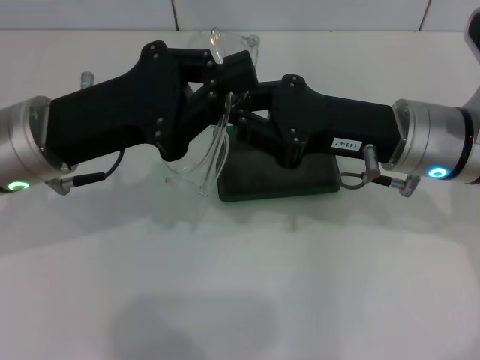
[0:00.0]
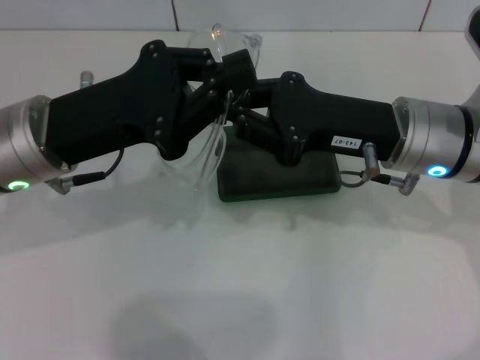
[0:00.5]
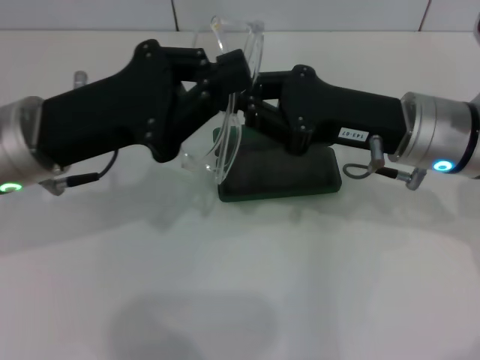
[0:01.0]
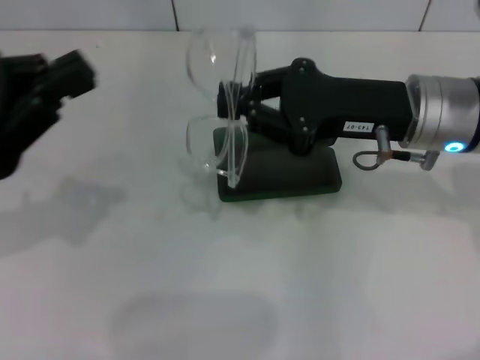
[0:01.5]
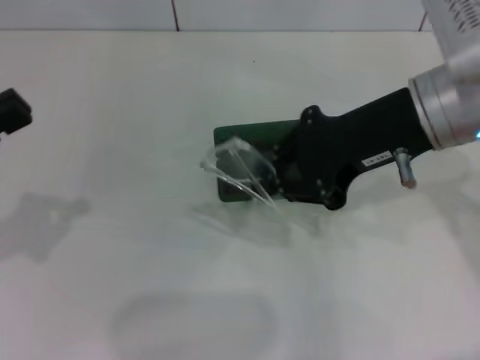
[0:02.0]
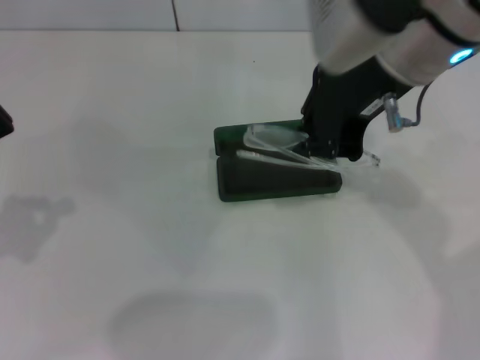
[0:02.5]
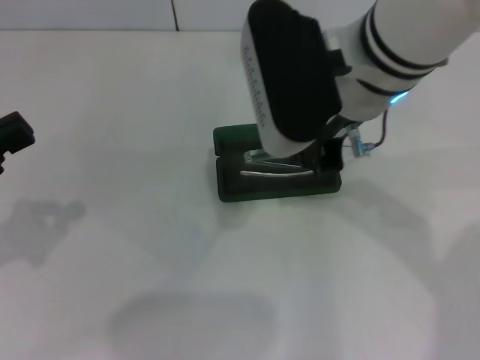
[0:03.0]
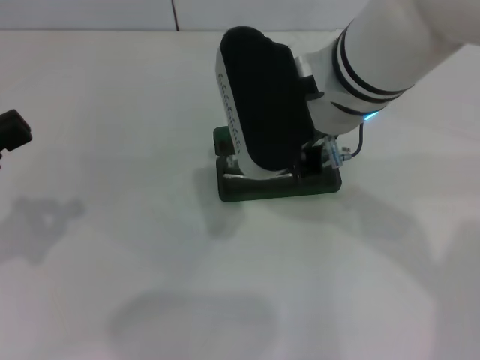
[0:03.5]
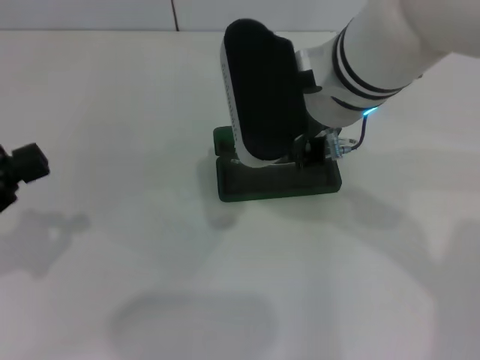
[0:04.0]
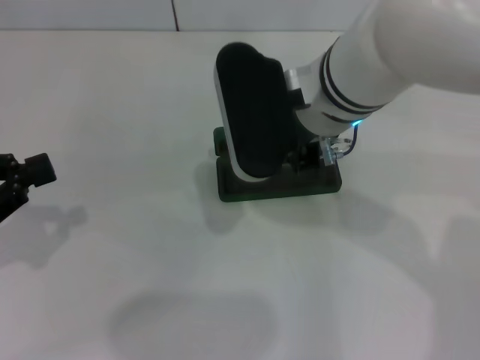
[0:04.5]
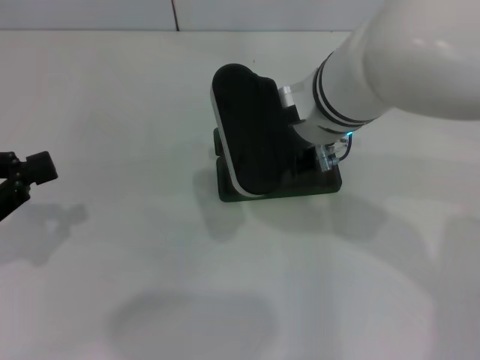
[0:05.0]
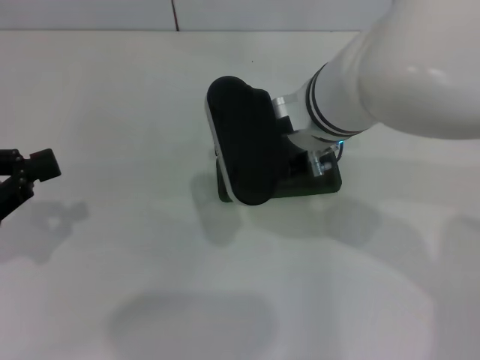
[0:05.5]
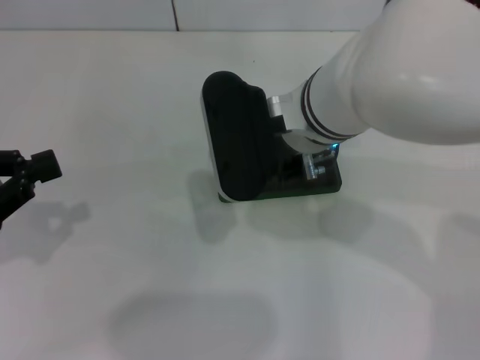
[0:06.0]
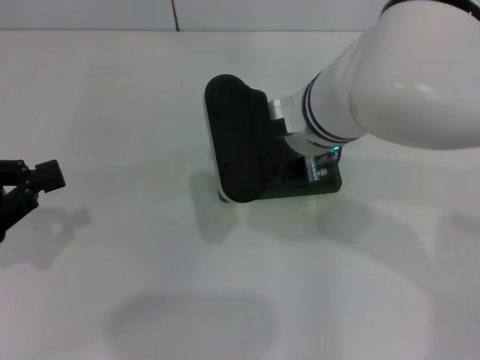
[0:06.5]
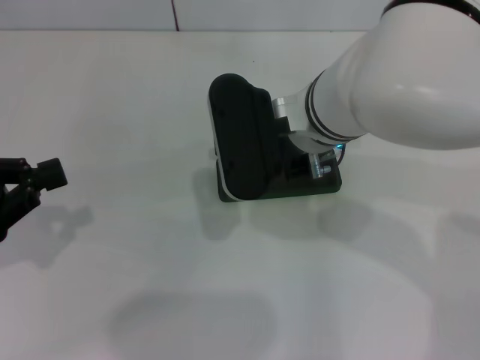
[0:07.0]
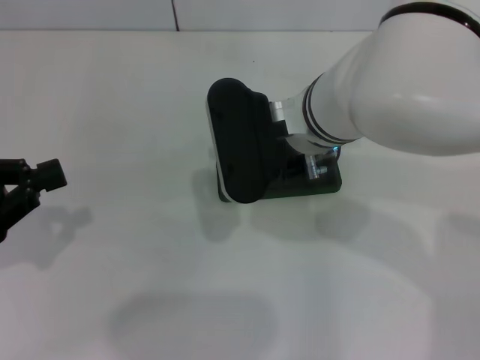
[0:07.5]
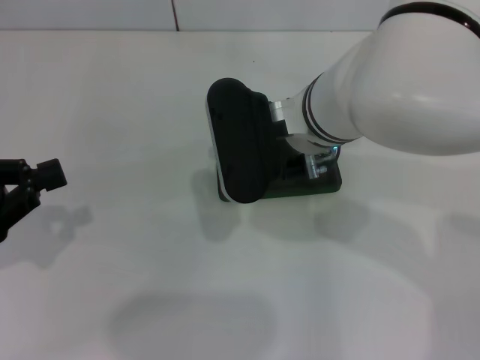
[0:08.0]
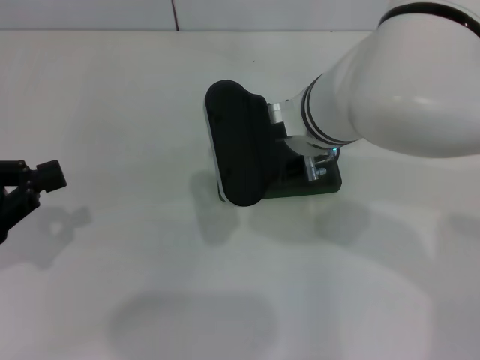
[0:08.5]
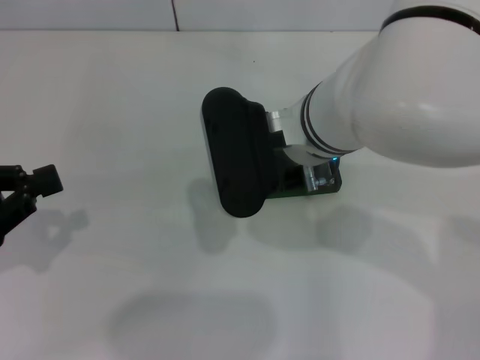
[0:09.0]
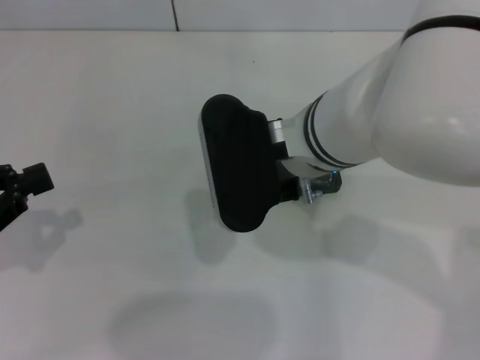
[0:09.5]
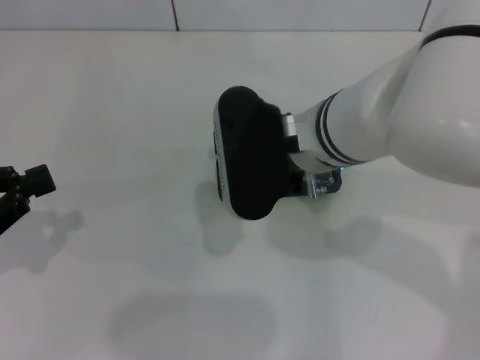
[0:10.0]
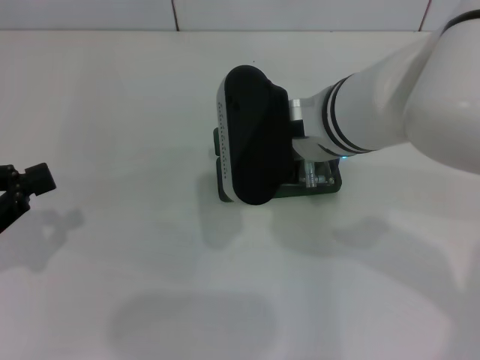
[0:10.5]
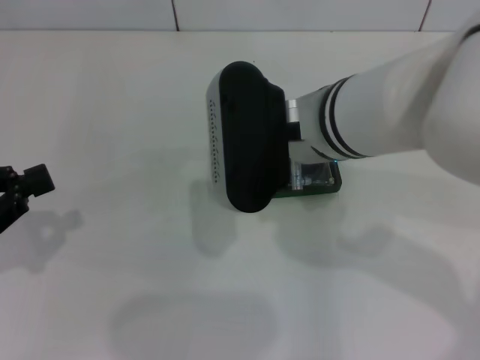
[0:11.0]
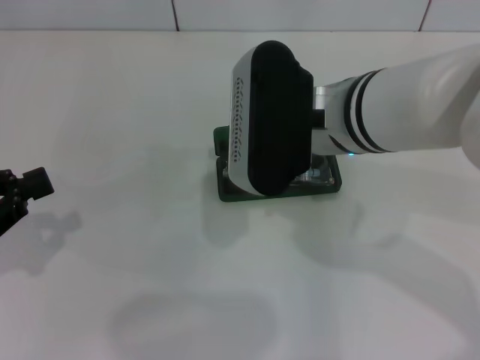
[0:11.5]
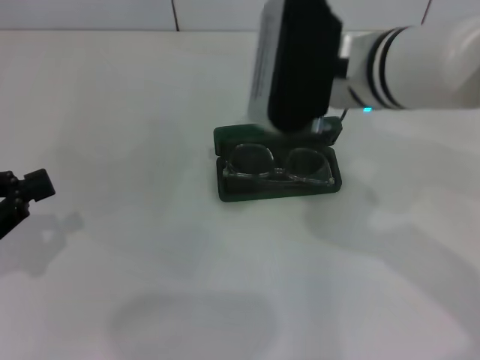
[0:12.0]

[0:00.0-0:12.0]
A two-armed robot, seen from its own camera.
Step, 0:00.0 to 0:09.0: Put the glasses into the case with your right hand.
0:00.0 to 0:02.0: The right gripper goes approximately 10 cm upward; the left gripper moves to the left and backward, roughly 15 cm.
0:02.0 to 0:04.0: The right gripper shifts about 10 cm to the left.
0:04.0 to 0:06.0: The grippers move only a little.
0:06.0 to 0:08.0: Both grippers stay put.
0:08.0 to 0:10.0: The grippers make only small movements.
0:10.0 to 0:12.0: The right gripper shifts by about 5 cm.

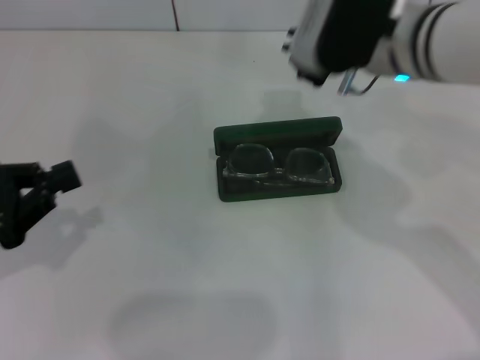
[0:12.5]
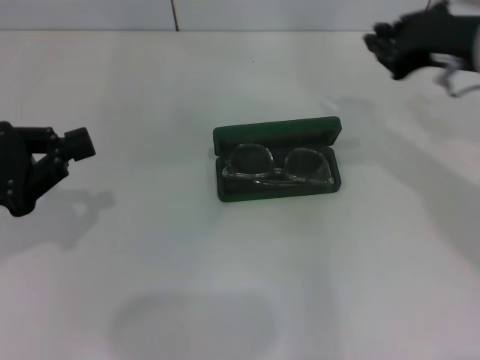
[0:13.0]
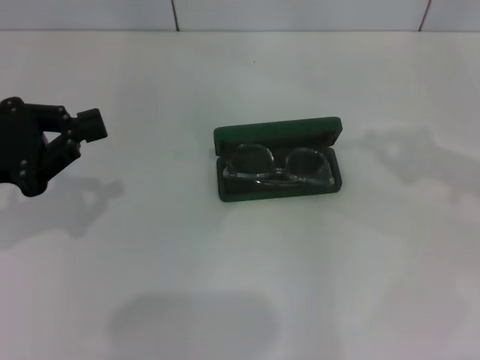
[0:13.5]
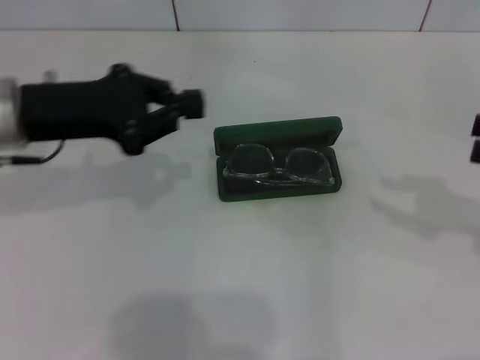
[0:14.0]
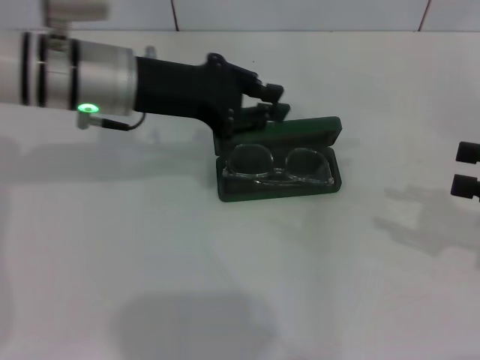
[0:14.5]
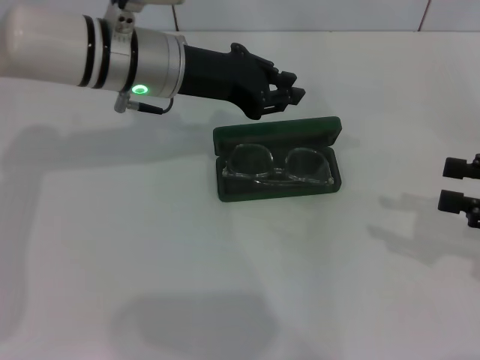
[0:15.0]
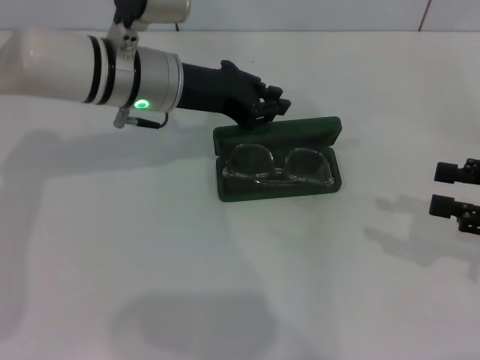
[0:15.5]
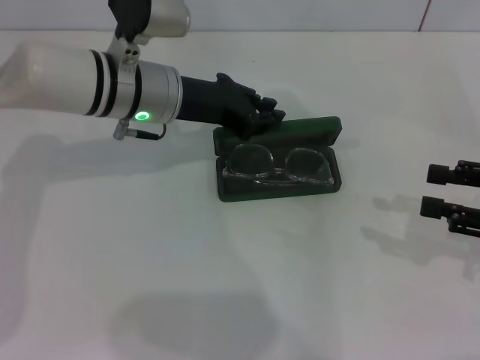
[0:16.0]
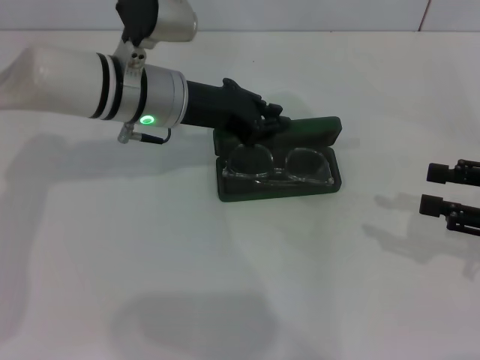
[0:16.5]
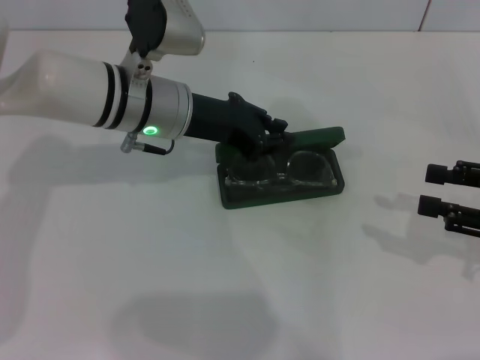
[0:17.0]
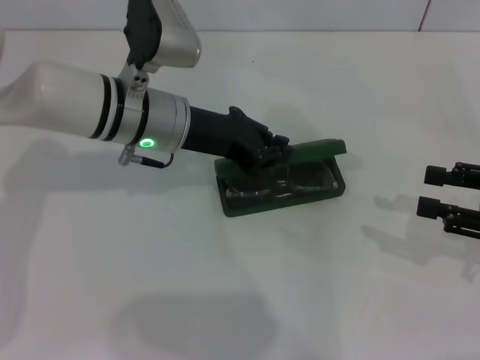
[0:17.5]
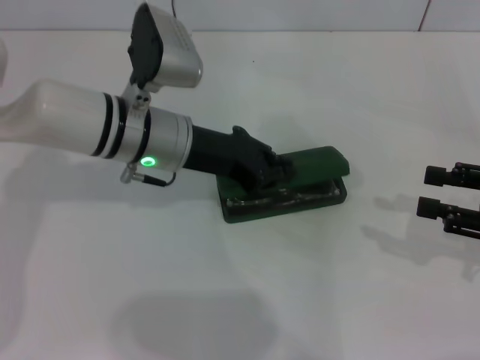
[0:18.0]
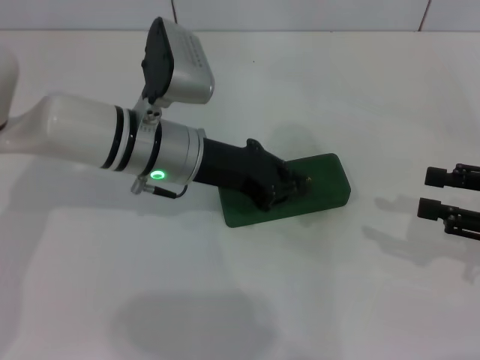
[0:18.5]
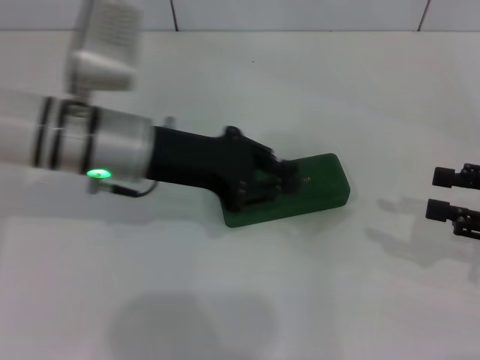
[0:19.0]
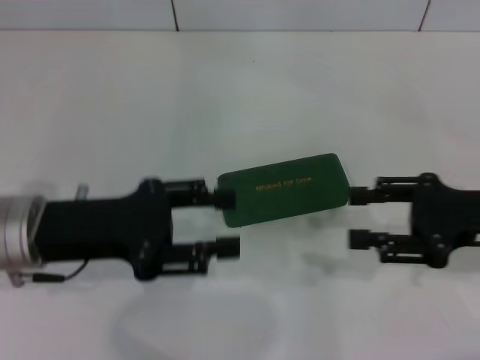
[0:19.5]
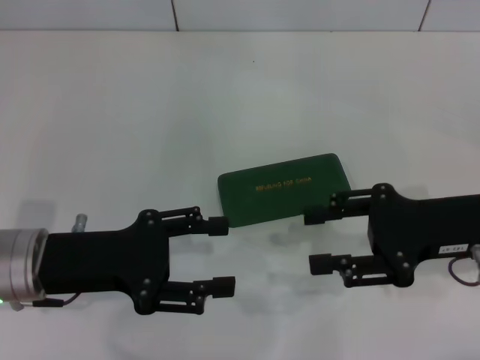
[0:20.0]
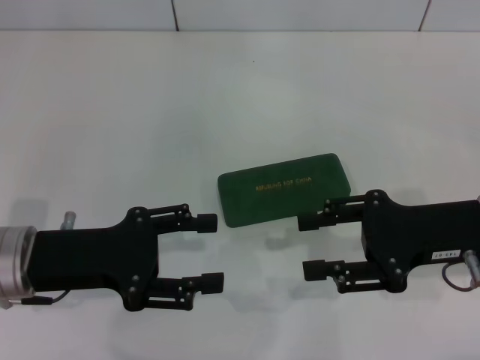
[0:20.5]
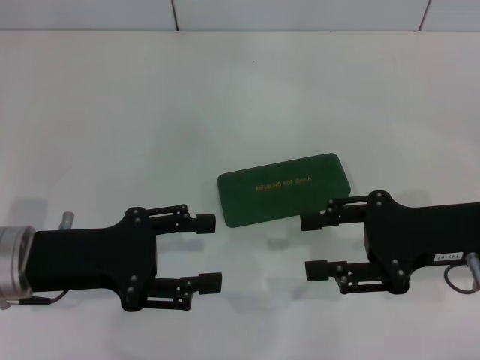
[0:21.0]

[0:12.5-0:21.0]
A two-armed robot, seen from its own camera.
Step, 0:12.5 to 0:18.0: Close the glasses case with your left hand.
0:12.5 to 0:14.5: The left gripper moves to the right and forward, approximately 25 cm. Meanwhile the right gripper is displaced to the right and backward by about 25 cm, and opens its fingers.
0:14.5 to 0:16.5: The left gripper changes place by roughly 5 cm.
0:16.5 to 0:19.0: The left gripper moves backward, about 5 cm.
0:19.0 to 0:21.0: The right gripper moves to the left, some 10 cm; the left gripper is displaced to the left and backward by about 15 cm, and opens.

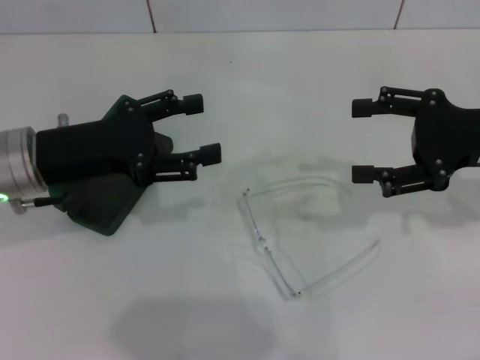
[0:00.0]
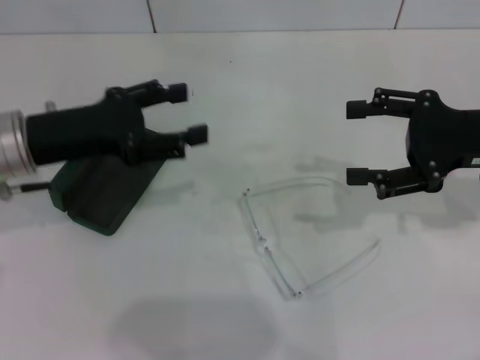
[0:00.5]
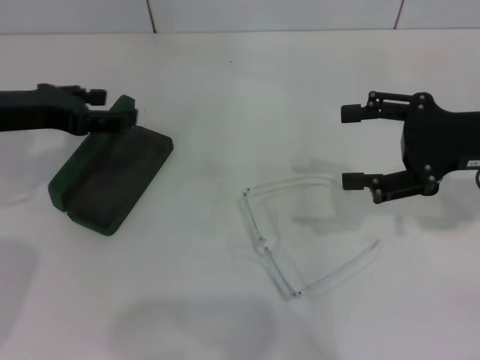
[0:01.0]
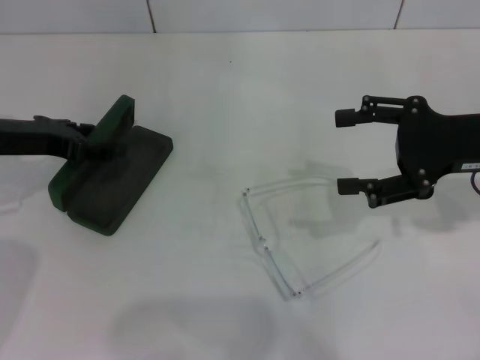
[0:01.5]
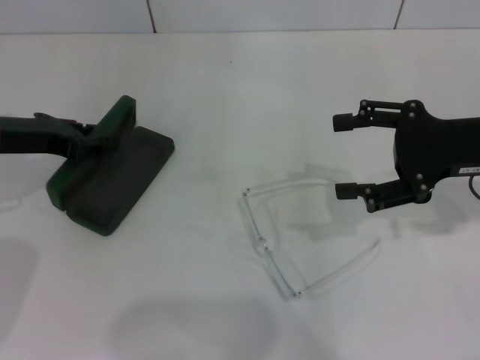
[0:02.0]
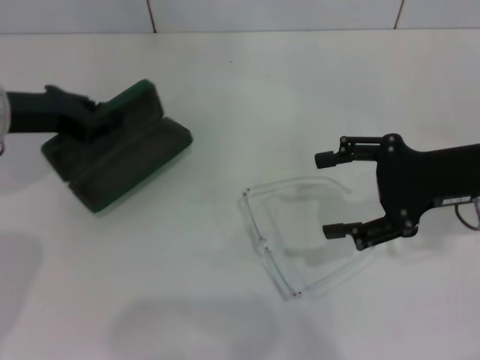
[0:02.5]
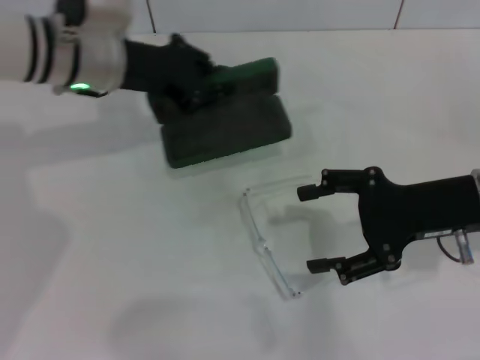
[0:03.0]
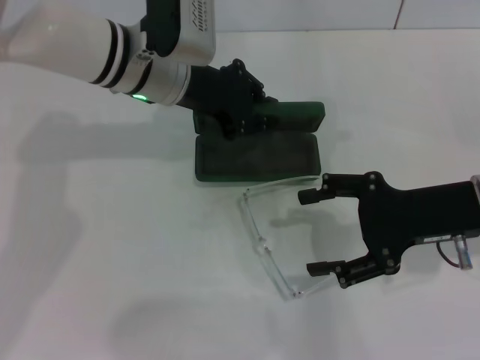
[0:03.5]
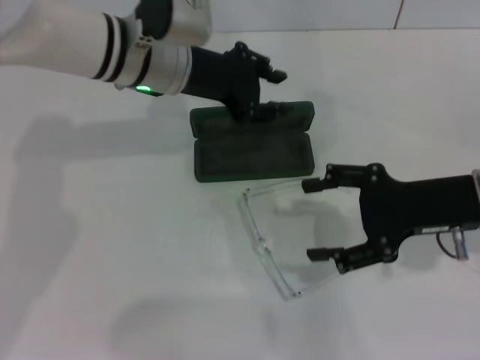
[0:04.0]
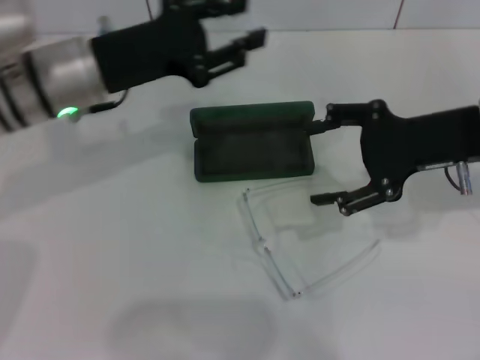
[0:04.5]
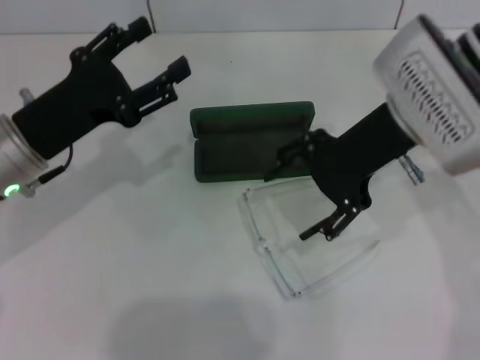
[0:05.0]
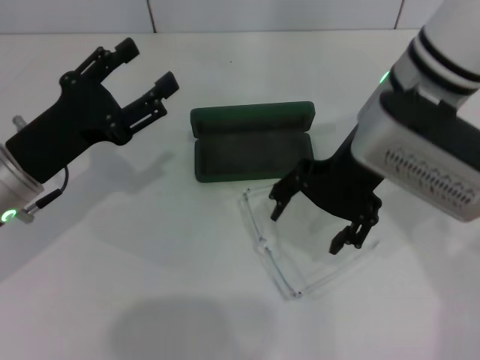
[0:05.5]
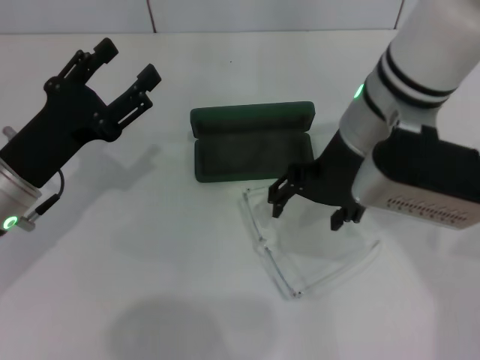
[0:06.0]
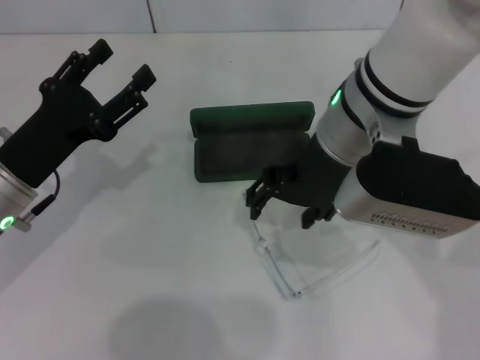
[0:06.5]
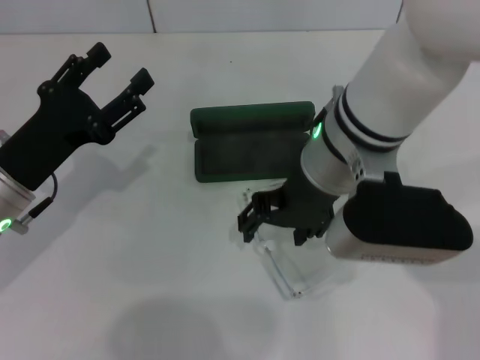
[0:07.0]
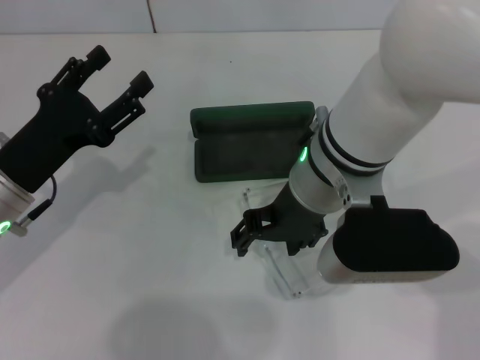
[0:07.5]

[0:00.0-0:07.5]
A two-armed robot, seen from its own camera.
Step, 0:00.0 to 0:01.5: Grab the glasses case with your left hand.
Step, 0:02.5 to 0:03.5: Place the glasses case in the center of the table with your left hand.
0:00.0 to 0:02.0: The left gripper moves to the left, approximately 5 cm, and closes.
0:02.0 to 0:04.0: The left gripper moves to the right, some 20 cm. Meanwhile the right gripper shifts by approximately 5 cm.
0:04.0 to 0:05.5: The left gripper shifts roughly 20 cm backward, to the left and downward, and opens its fingers; the right gripper goes some 15 cm to the left and upward.
0:05.5 to 0:07.5: The right gripper is displaced to the left by about 5 cm.
